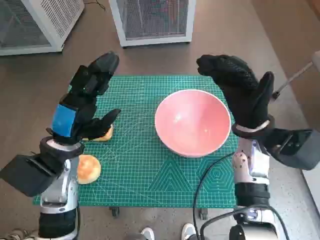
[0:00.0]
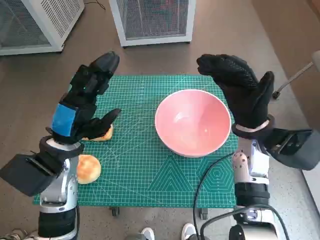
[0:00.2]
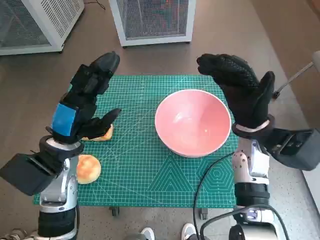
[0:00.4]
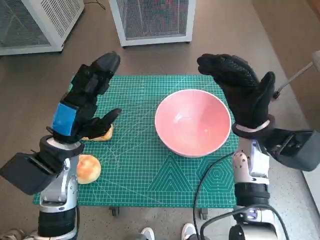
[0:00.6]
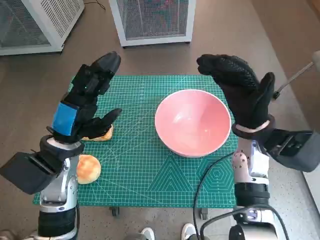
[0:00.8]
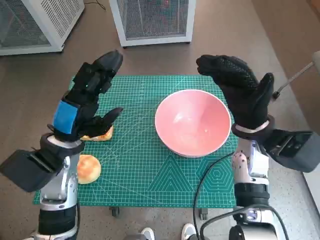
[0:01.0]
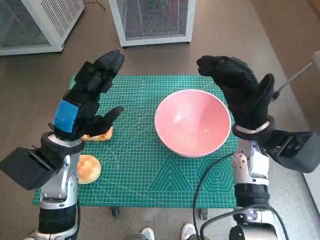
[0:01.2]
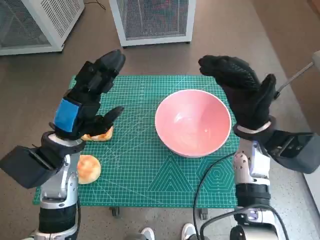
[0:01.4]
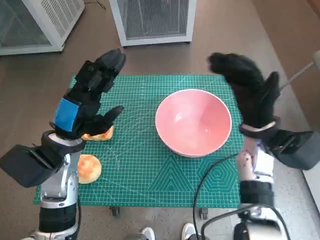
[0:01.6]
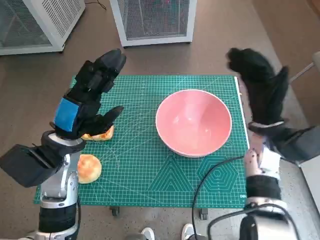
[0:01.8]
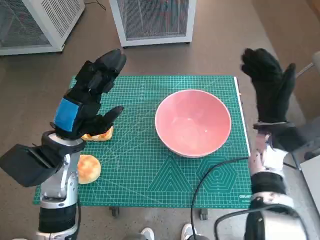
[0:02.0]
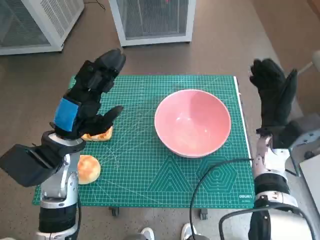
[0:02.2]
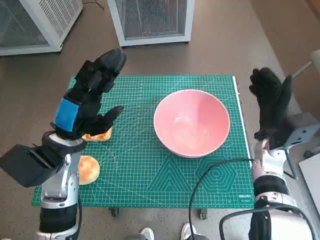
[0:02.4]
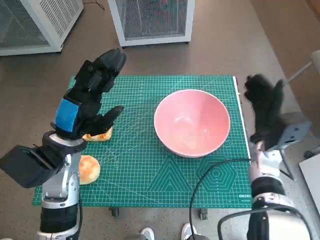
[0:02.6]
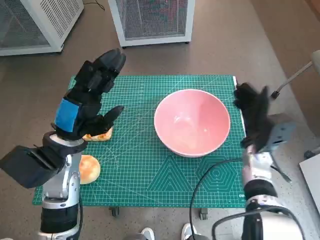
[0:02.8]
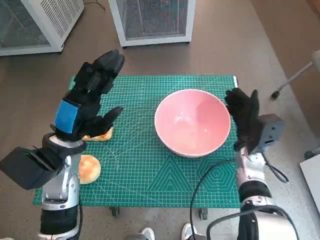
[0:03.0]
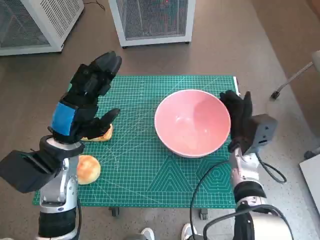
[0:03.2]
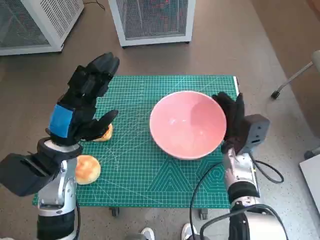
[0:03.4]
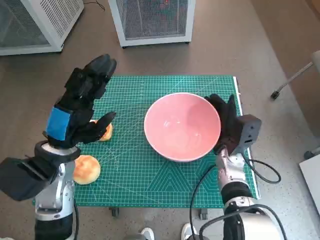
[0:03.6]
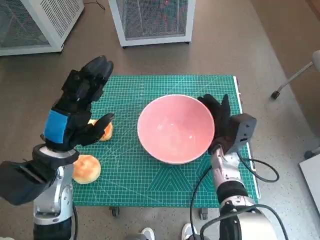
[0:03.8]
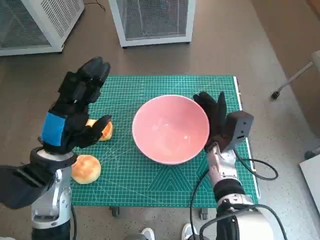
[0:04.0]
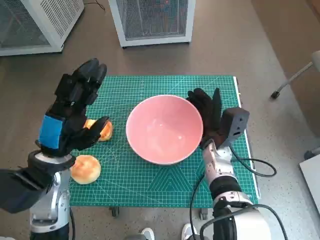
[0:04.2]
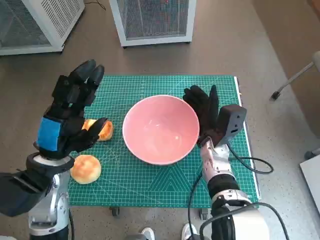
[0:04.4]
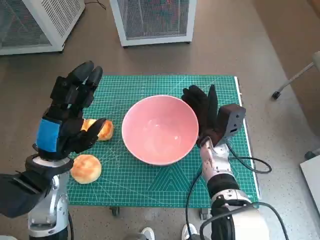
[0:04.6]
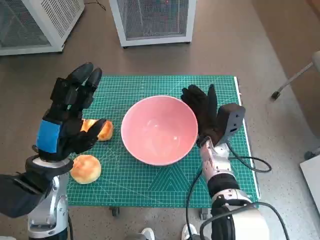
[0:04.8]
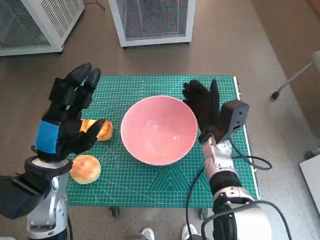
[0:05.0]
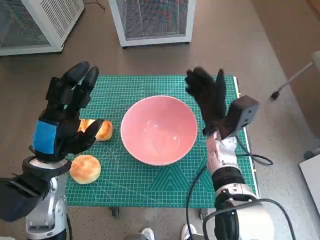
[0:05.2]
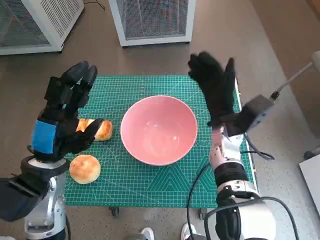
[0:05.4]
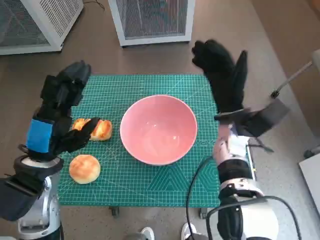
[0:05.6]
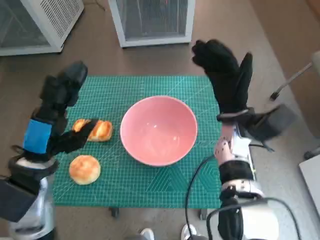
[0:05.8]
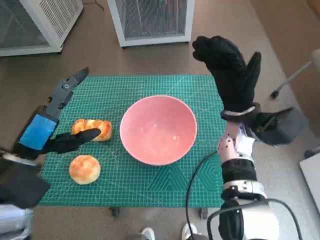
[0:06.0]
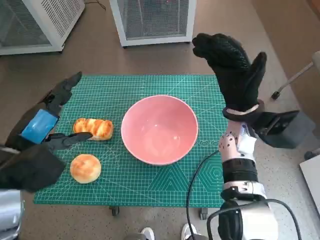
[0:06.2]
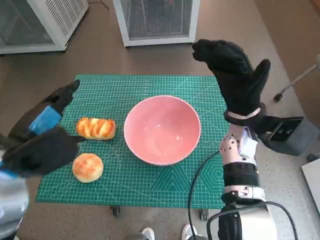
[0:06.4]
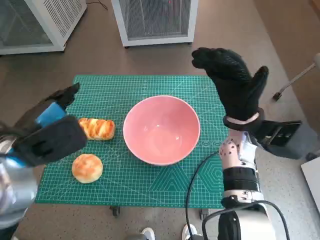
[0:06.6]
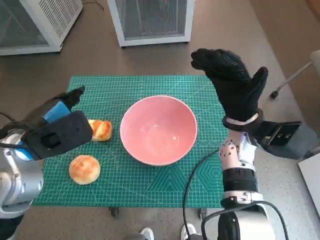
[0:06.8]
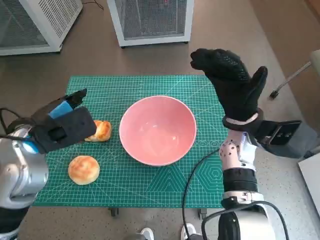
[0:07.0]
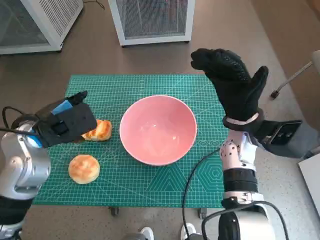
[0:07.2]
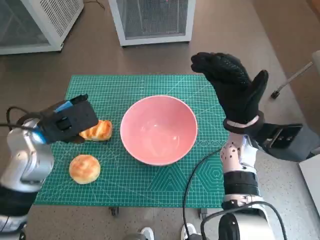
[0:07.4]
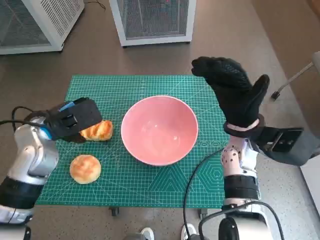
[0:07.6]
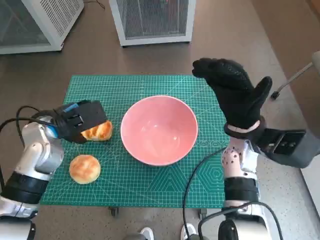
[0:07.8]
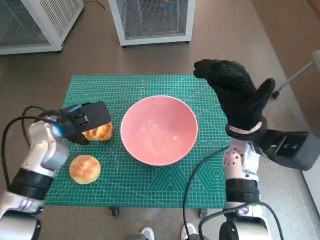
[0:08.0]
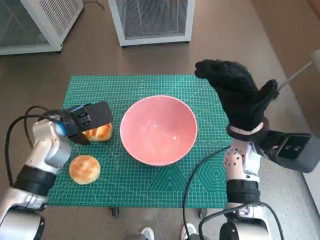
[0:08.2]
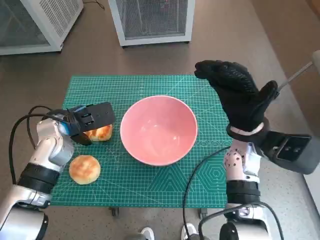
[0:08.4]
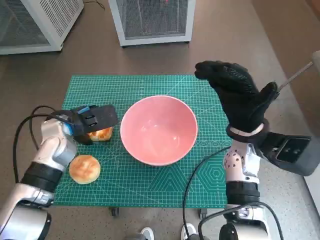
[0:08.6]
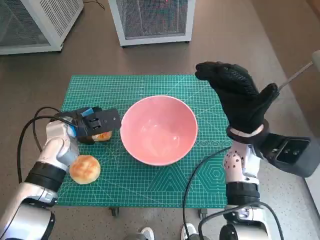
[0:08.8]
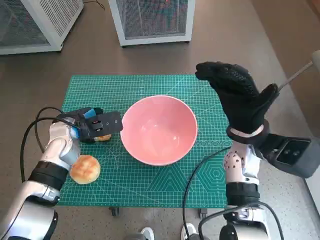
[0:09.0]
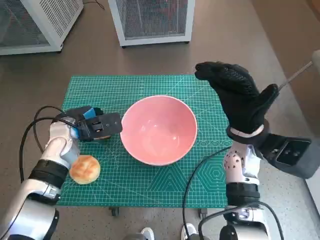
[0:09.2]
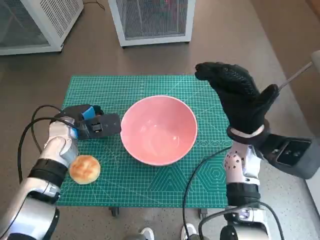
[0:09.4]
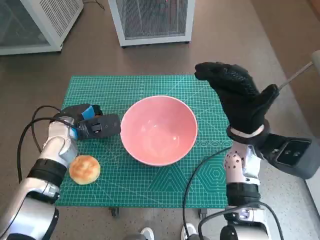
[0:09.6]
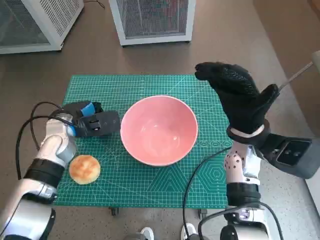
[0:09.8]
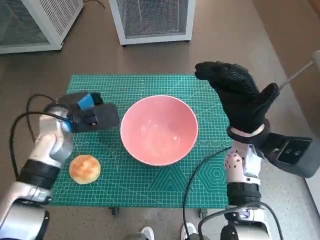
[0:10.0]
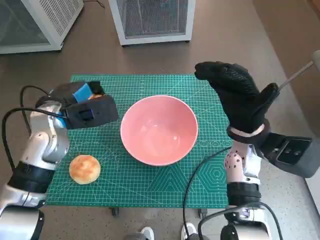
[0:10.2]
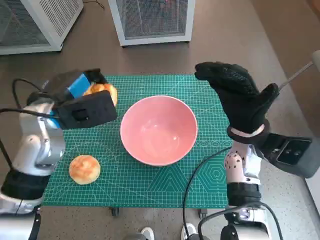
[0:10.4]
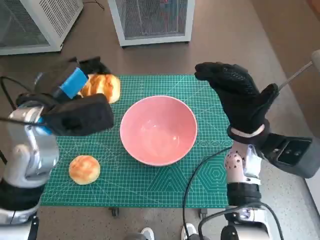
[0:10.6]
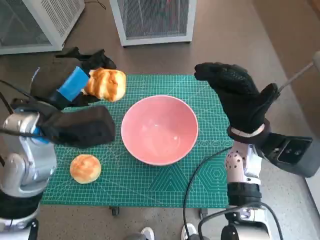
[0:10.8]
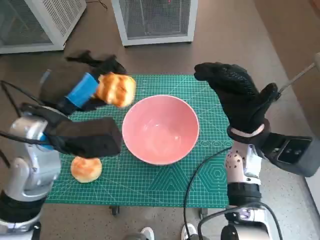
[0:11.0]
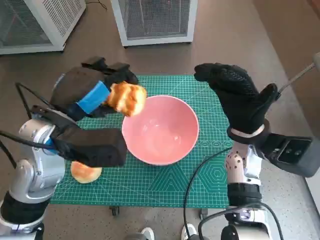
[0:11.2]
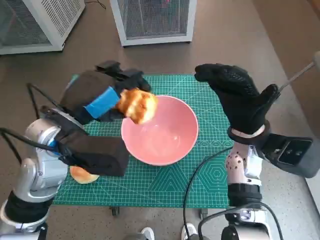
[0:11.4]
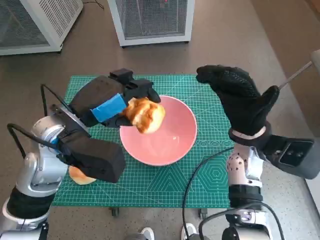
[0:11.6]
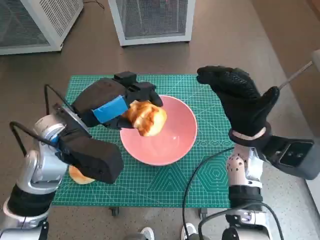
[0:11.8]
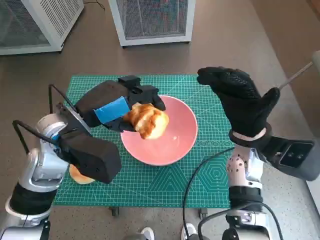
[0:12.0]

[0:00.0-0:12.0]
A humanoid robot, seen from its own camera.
Task of the whole recording: Push the bowl into the center of the table and put the bread into the bowl.
Step, 0:00.0 to 0:05.0: Move the pink bowl to the center of table with right hand.
Step, 0:05.2 to 0:09.2: Grasp the long bread with left hand.
0:01.6 to 0:03.0: The right hand shifts roughly 10 cm downward.
0:03.0 to 0:04.4: The right hand shifts about 10 cm to the left.
0:04.4 to 0:06.0: The right hand travels upward by some 10 cm.
0:06.0 to 0:07.6: The left hand goes roughly 10 cm forward.
0:07.6 to 0:09.0: The left hand goes some 5 cm downward.
0:09.0 to 0:10.4: The left hand shifts about 10 cm upward.
0:10.4 to 0:12.0: The left hand changes place by some 5 cm.

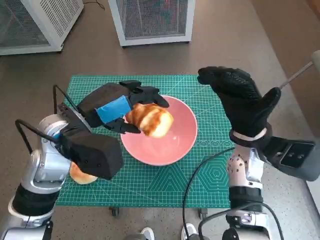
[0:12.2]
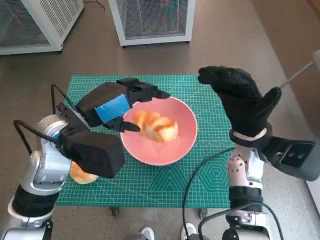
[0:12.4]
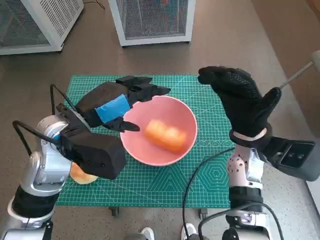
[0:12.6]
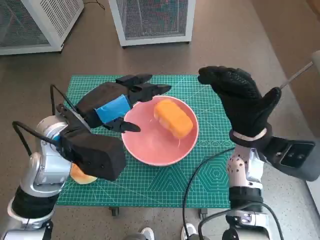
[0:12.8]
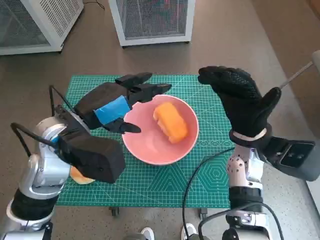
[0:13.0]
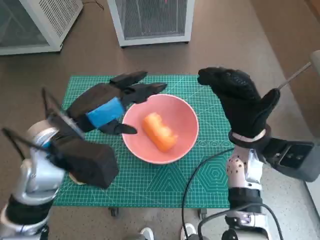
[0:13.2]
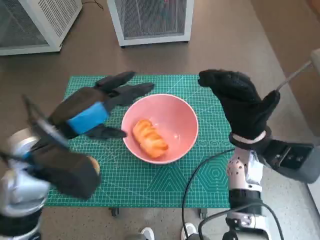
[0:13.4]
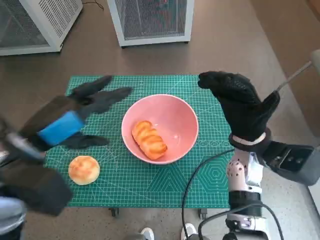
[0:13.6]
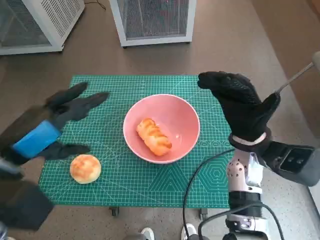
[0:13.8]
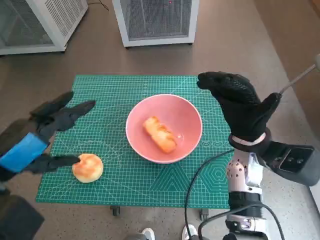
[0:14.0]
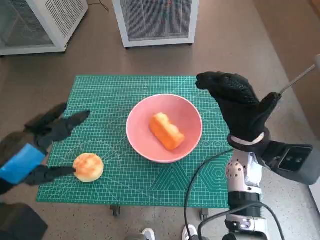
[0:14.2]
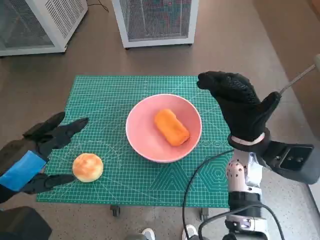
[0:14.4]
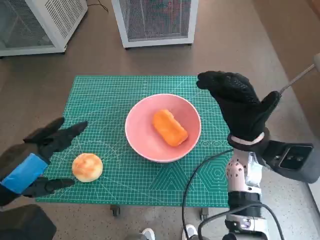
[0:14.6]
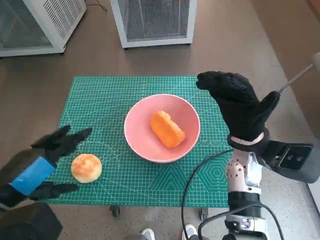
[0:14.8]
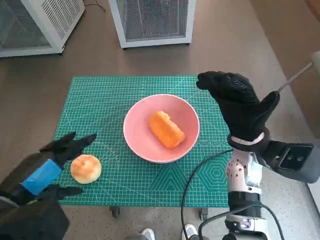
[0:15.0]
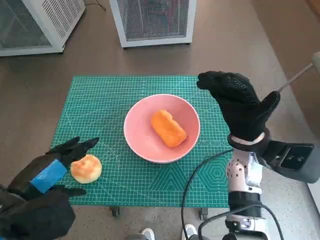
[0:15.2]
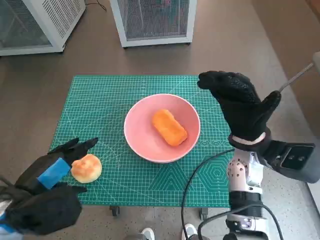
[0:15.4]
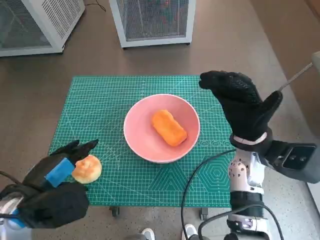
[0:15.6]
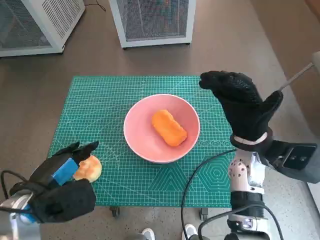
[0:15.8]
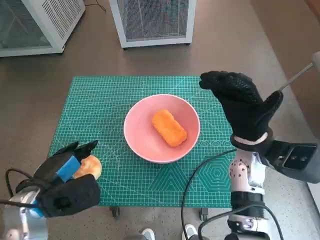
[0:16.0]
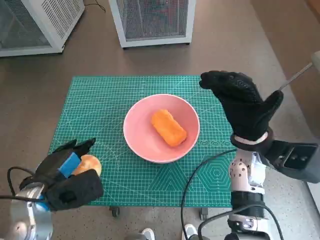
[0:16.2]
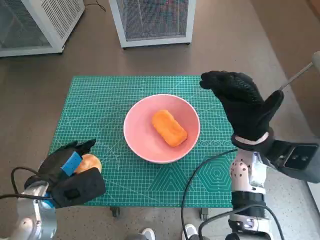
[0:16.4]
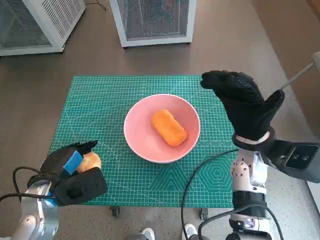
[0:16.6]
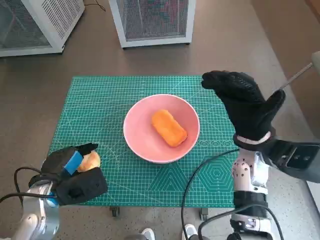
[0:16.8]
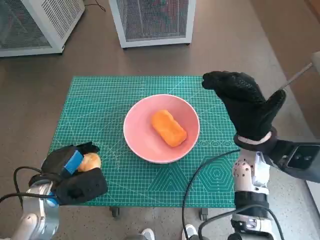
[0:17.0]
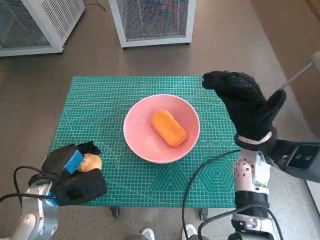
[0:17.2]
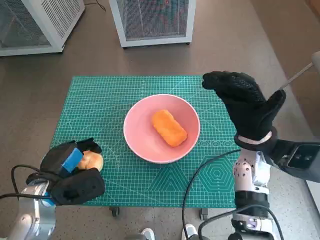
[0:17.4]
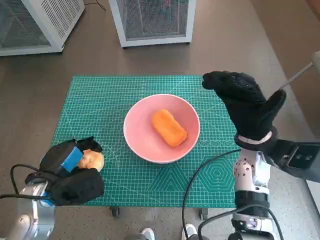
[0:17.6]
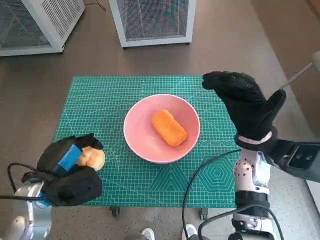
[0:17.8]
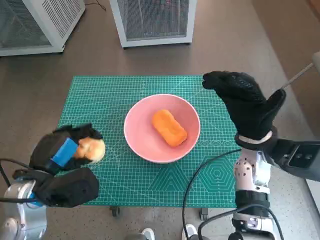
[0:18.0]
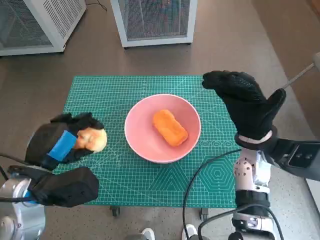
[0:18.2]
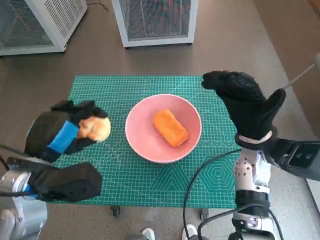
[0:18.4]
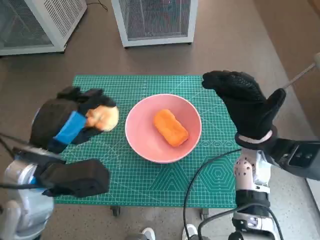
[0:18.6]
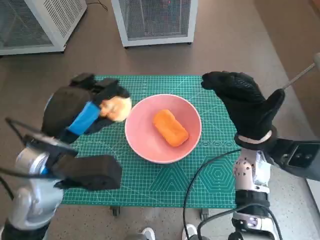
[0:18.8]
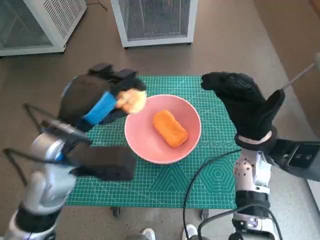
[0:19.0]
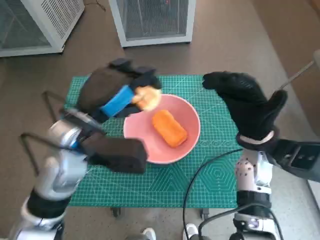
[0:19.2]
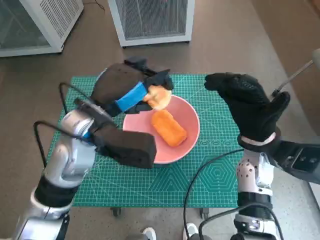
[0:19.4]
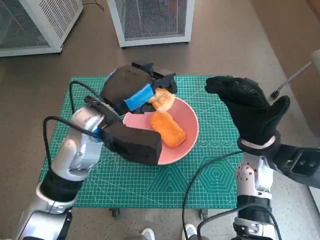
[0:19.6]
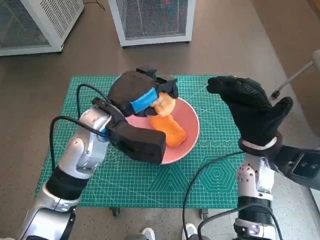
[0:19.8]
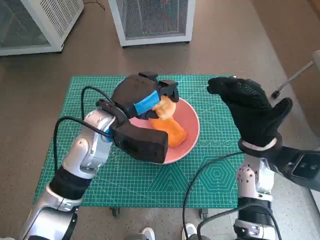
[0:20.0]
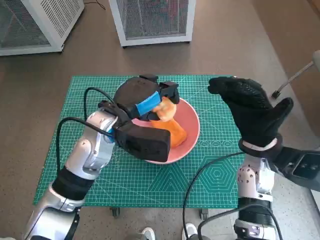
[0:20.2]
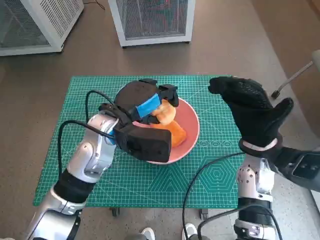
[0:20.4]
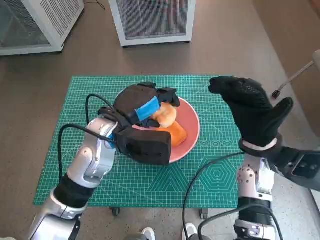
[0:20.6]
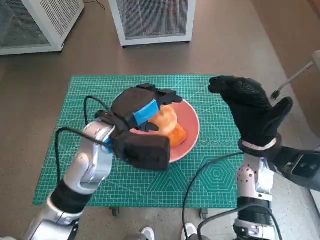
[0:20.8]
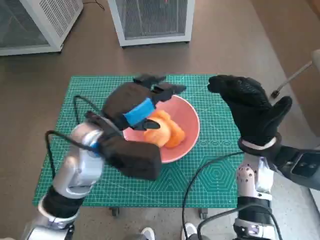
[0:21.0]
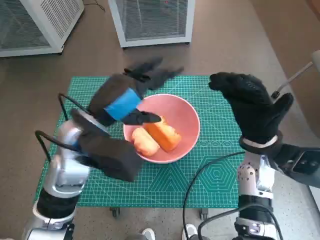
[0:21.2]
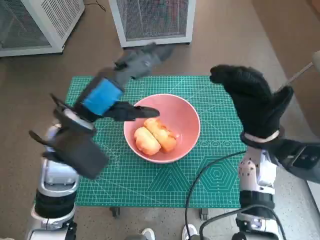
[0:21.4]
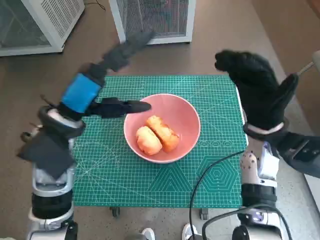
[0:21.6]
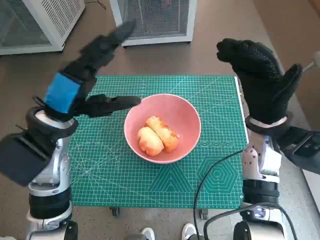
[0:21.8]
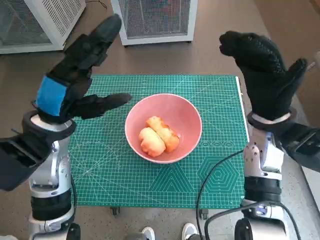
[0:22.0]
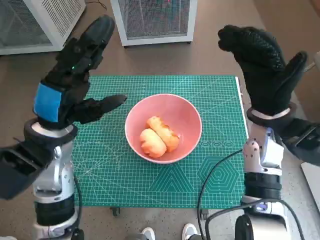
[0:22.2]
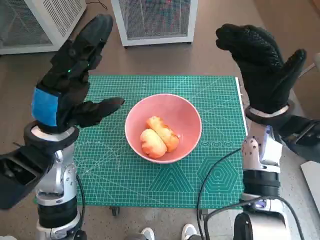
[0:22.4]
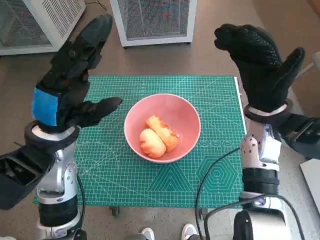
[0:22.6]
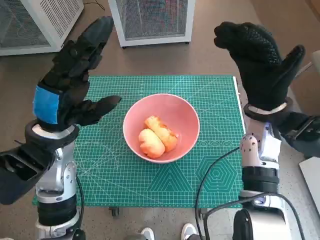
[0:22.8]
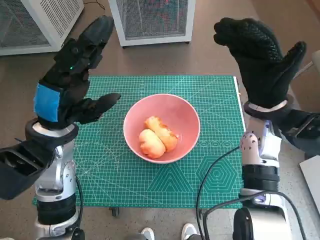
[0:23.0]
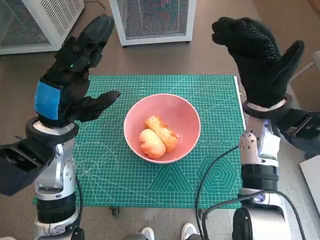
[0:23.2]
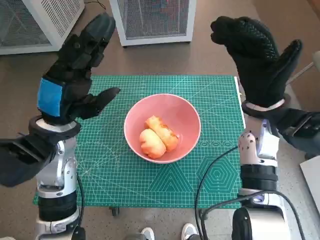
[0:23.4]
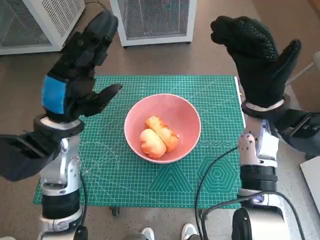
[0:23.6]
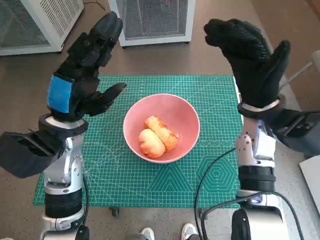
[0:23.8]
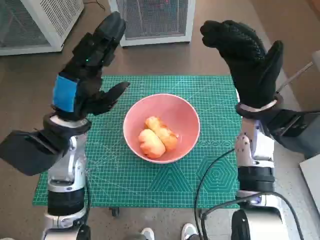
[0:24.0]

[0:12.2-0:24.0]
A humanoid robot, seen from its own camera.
Task of the whole recording: Push the bowl into the center of the table and put the bread into the bowl.
Step, 0:12.6 to 0:17.0: Grasp the round bread with left hand.
Step, 0:17.2 to 0:20.8: Place the round bread in pink bowl with left hand.
0:12.2 to 0:13.6: The left hand travels backward by some 5 cm.
0:13.6 to 0:15.2: The left hand heads backward, covering some 10 cm.
0:15.2 to 0:16.6: The left hand shifts about 10 cm downward and forward.
0:16.6 to 0:18.2: The left hand goes some 5 cm upward.
0:18.2 to 0:19.6: The left hand is displaced to the right, forward and upward by roughly 15 cm.
0:19.6 to 0:21.0: The hands move only a little.
0:21.0 to 0:22.6: The right hand heads upward, covering about 5 cm. Meanwhile the left hand goes some 5 cm to the left.
